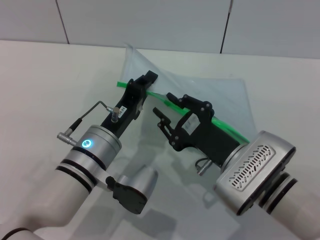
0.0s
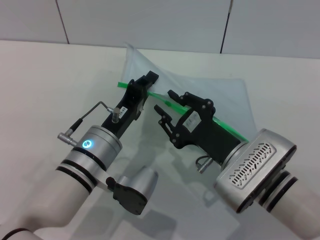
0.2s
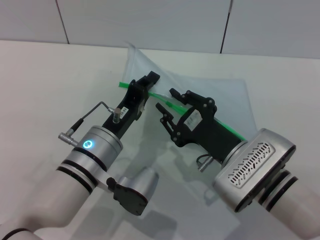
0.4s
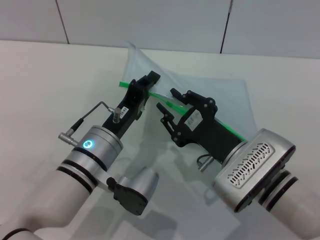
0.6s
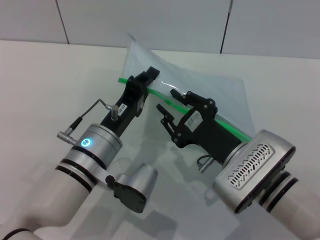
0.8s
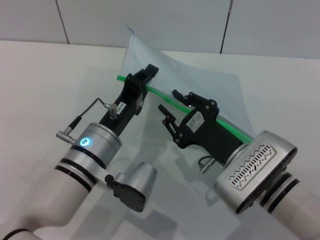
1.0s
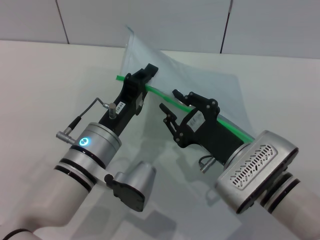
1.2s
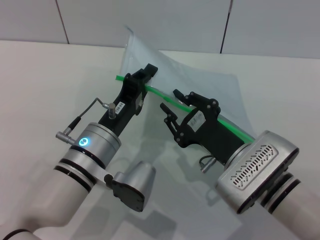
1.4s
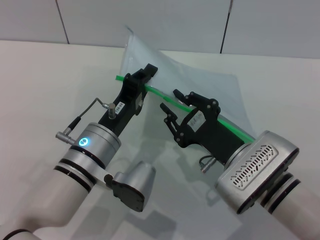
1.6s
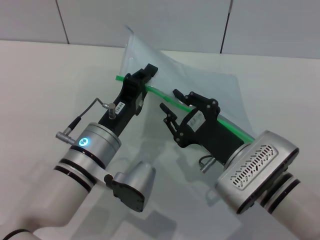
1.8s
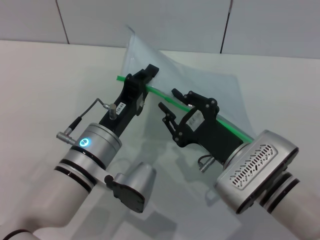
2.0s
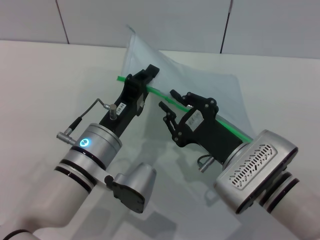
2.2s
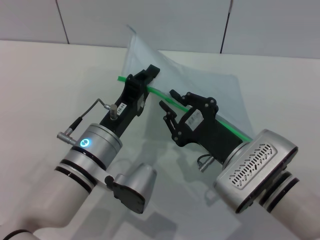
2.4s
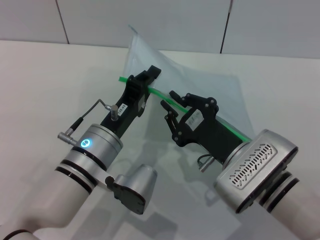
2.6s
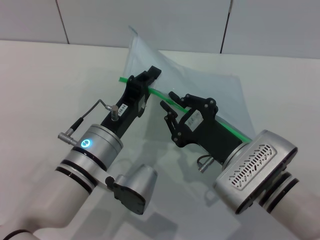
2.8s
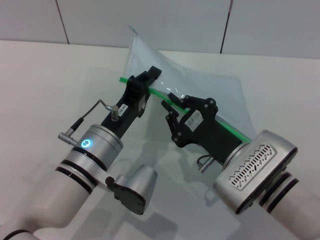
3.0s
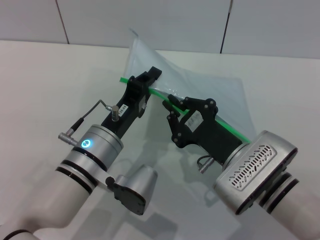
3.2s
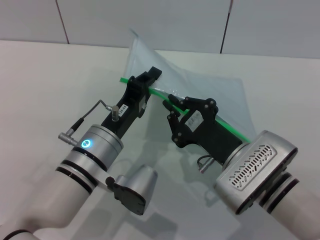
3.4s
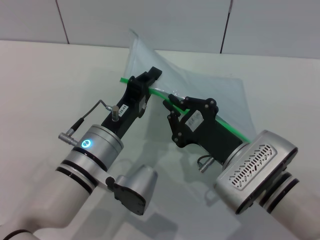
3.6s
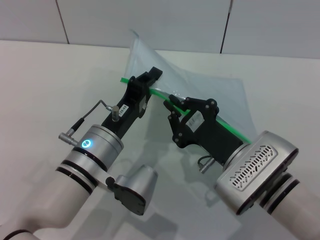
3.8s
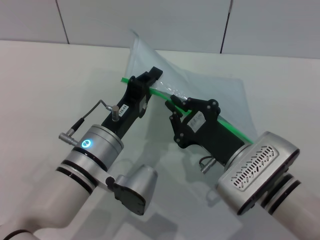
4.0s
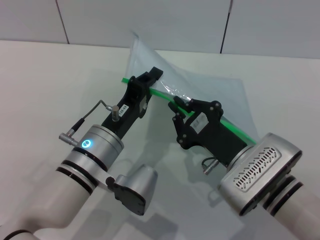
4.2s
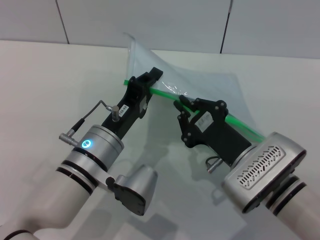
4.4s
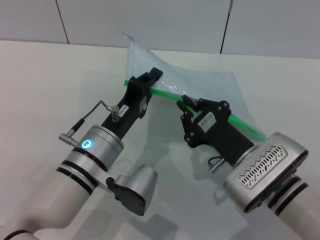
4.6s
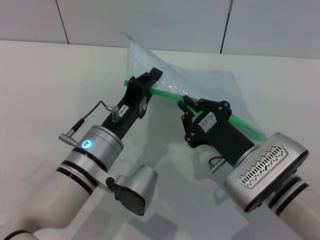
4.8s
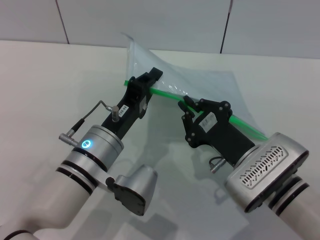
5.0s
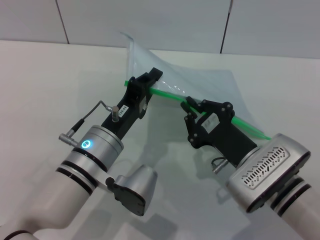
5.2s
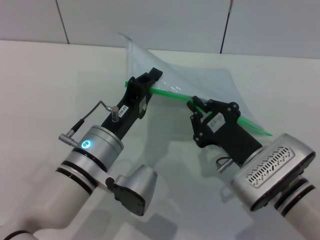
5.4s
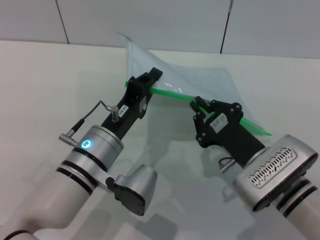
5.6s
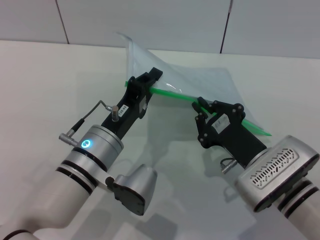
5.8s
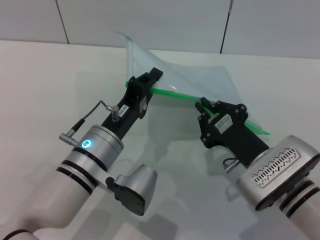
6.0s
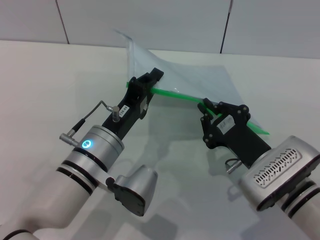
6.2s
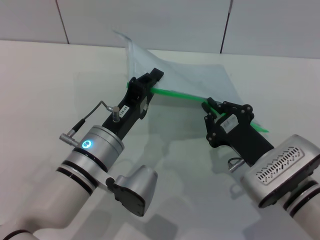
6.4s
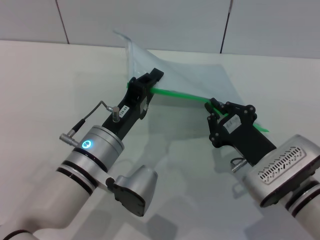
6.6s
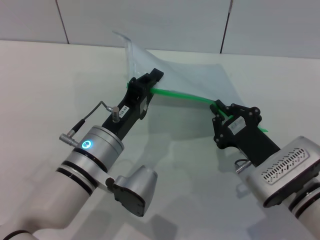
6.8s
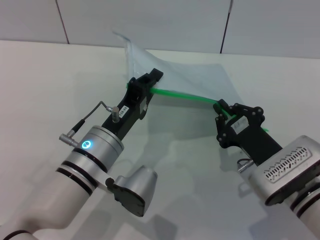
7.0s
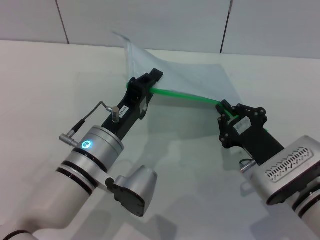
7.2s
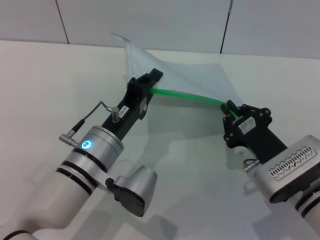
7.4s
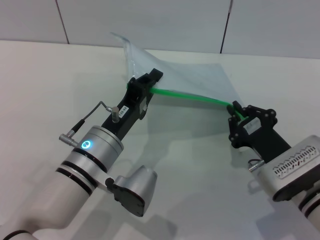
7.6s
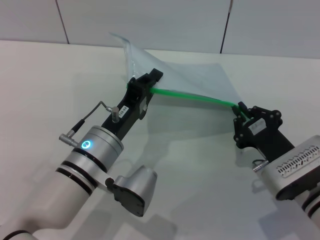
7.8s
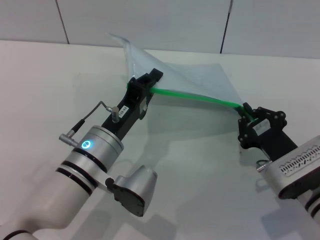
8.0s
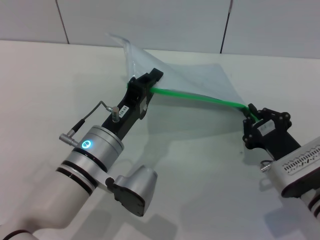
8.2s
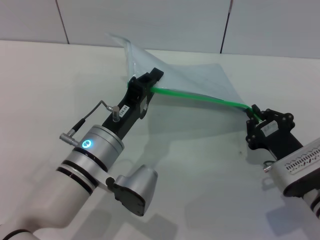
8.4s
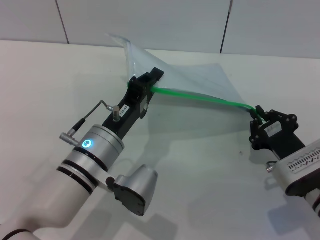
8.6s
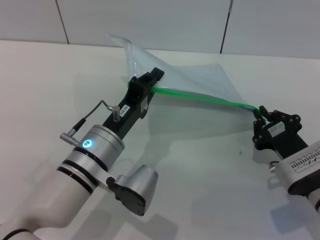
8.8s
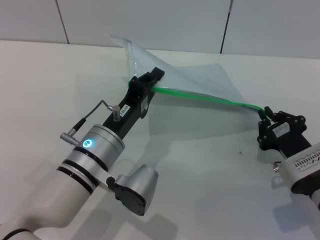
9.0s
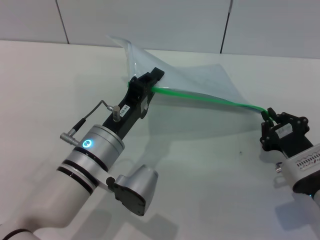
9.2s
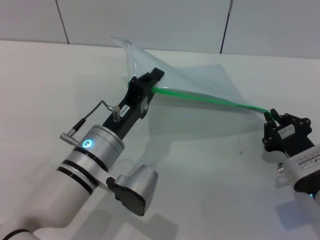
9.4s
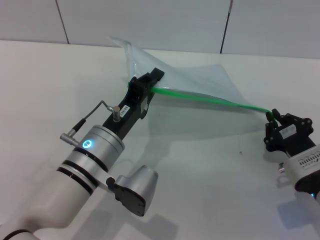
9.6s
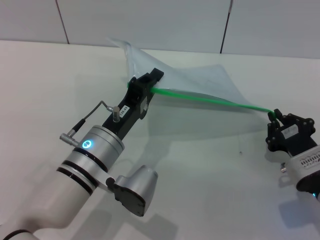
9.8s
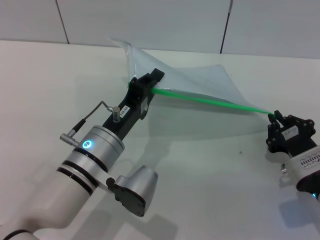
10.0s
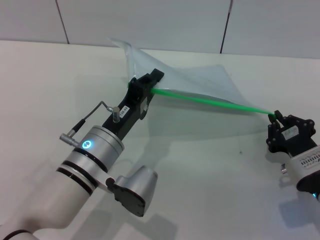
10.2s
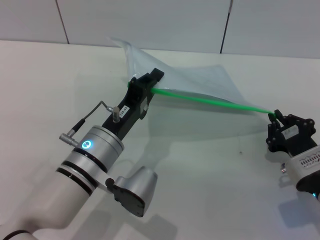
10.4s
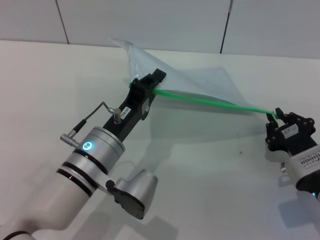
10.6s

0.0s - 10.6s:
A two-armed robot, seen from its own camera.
0.0s - 1.6s: The grippers make only small movements.
1.6s - 3.0s: Both grippers stay put.
3.0s - 6.0s: The grippers make only small movements.
6.0s - 7.6s: The grippers stay close to where they were, moving slightly.
7.6s - 9.0s: There are only small adjustments of the grippers.
9.0s - 10.6s: The two grippers keep their place.

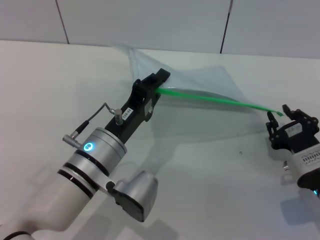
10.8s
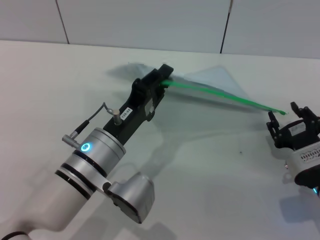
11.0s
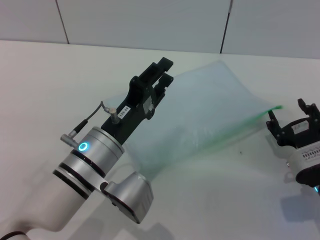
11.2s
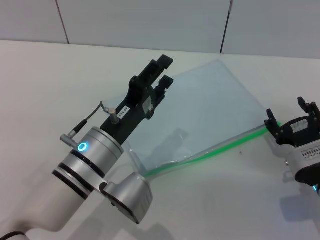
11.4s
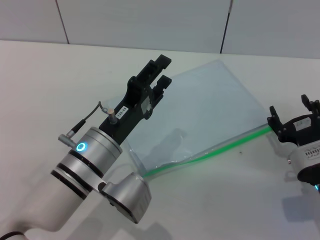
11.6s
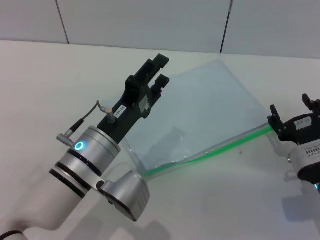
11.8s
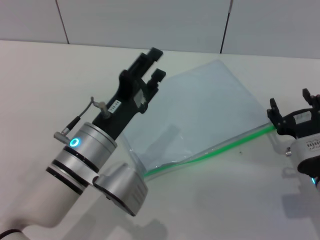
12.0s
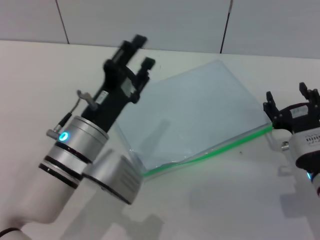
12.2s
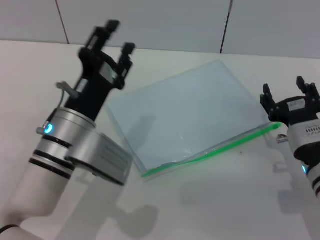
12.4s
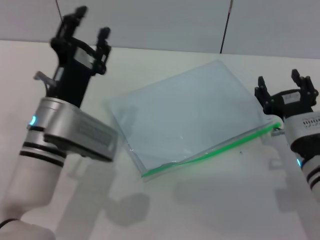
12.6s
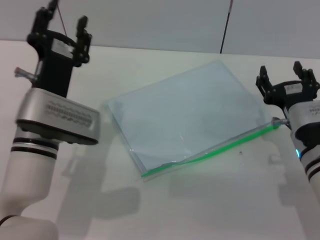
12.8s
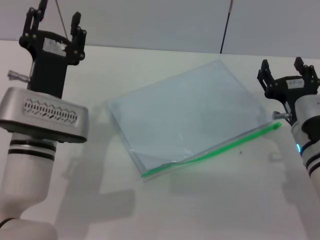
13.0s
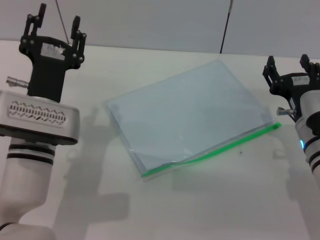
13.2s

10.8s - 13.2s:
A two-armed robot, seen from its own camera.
Step, 11.4s - 12.6s: Place the transparent plastic bag.
10.8s - 12.0s: The left gripper opens. Meanwhile the right gripper opens up.
12.0s - 13.2s: The left gripper changes place by approximately 5 cm; the right gripper moves about 5 cm.

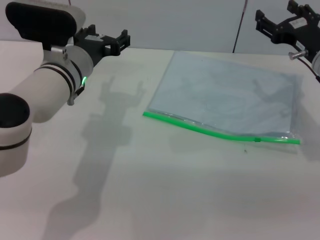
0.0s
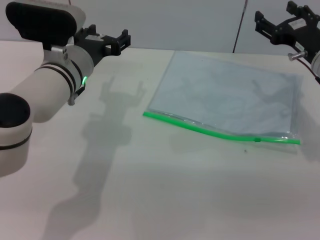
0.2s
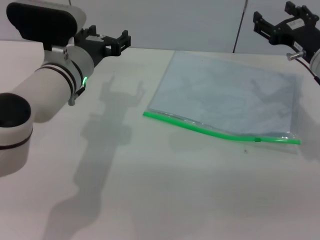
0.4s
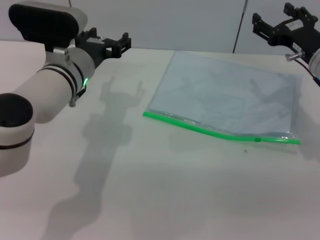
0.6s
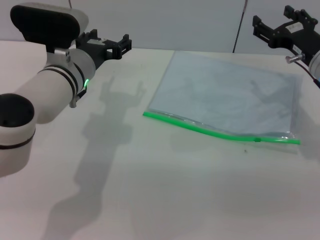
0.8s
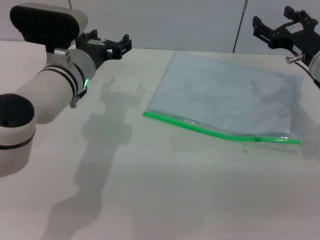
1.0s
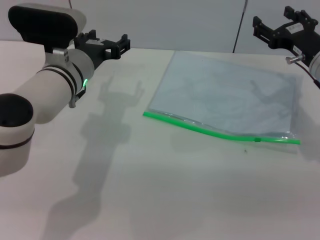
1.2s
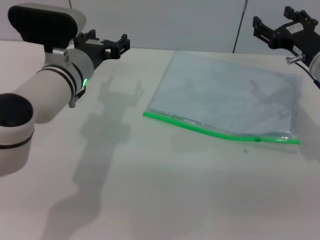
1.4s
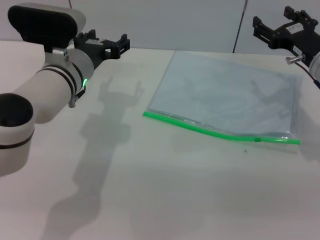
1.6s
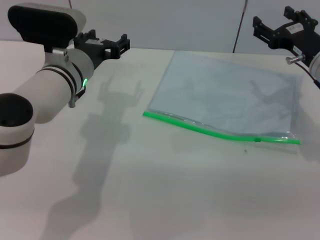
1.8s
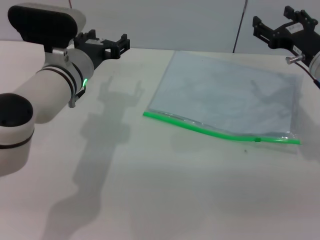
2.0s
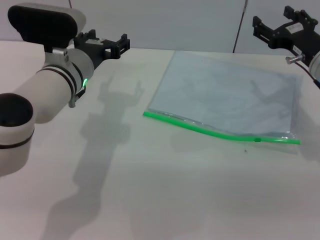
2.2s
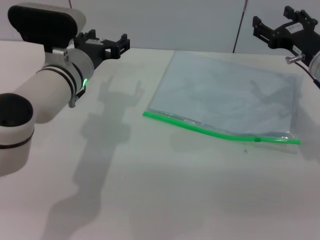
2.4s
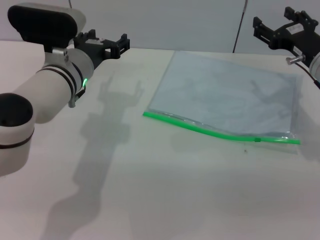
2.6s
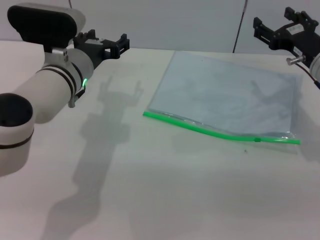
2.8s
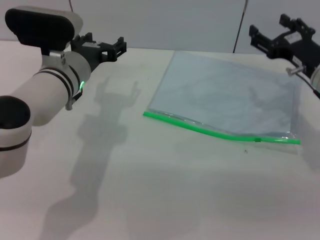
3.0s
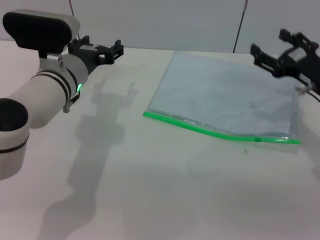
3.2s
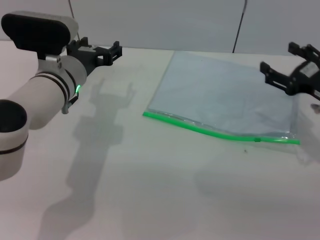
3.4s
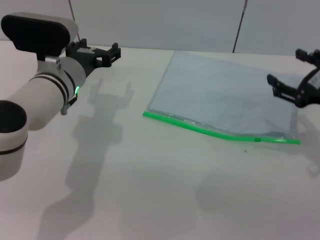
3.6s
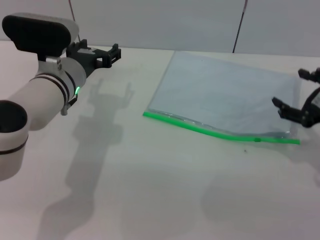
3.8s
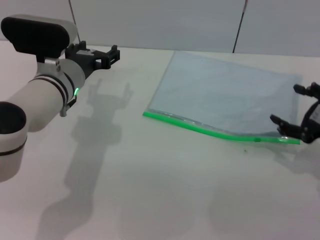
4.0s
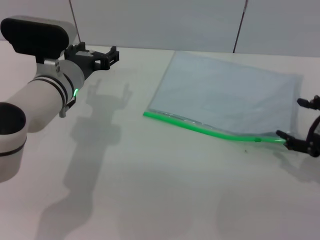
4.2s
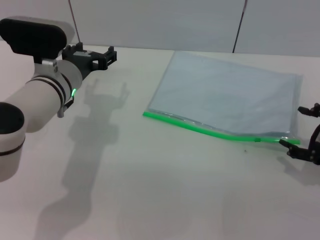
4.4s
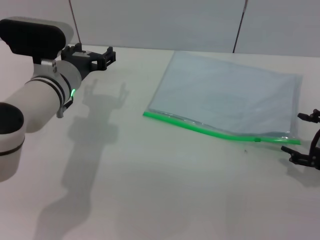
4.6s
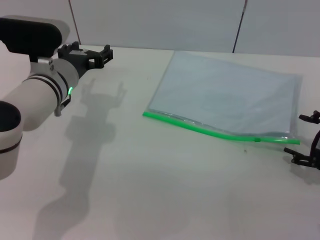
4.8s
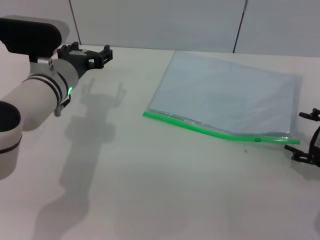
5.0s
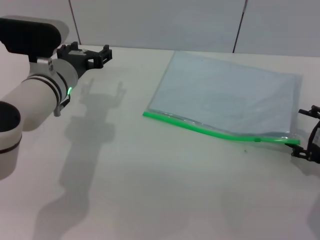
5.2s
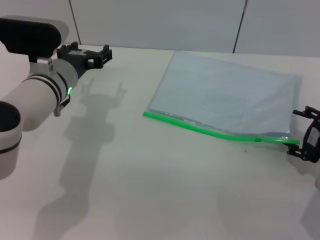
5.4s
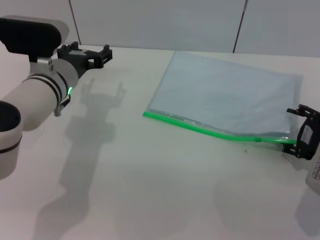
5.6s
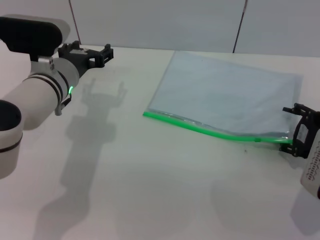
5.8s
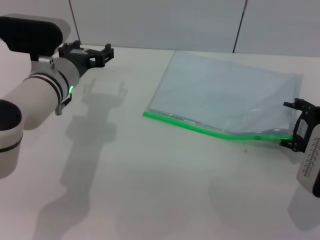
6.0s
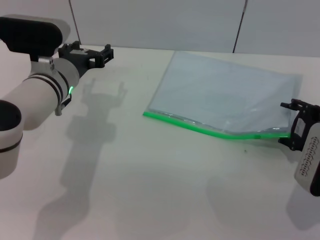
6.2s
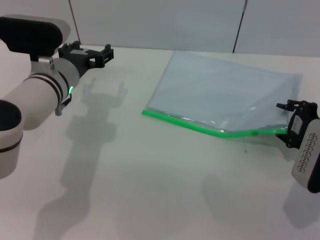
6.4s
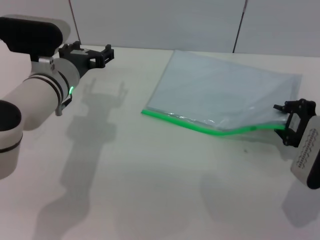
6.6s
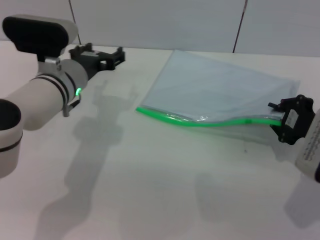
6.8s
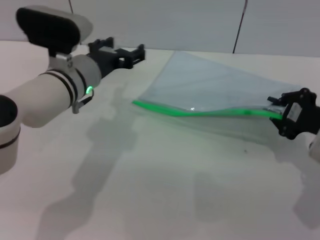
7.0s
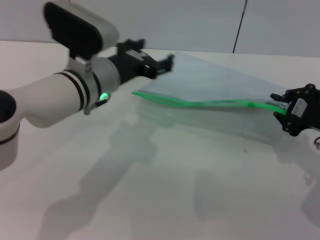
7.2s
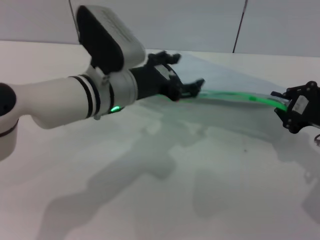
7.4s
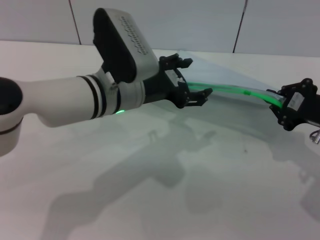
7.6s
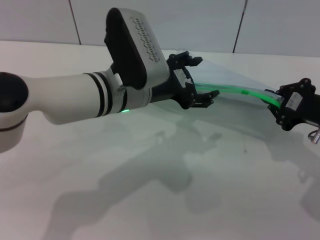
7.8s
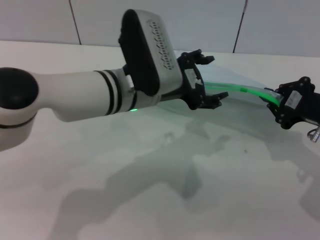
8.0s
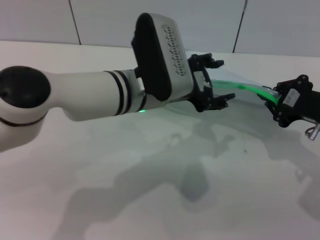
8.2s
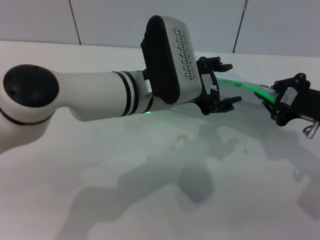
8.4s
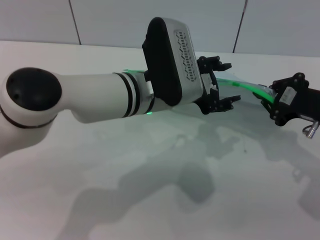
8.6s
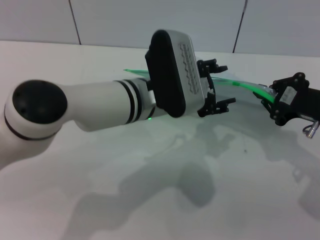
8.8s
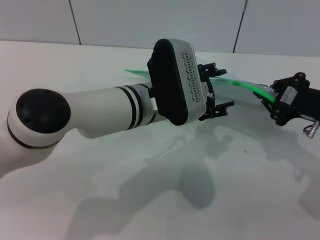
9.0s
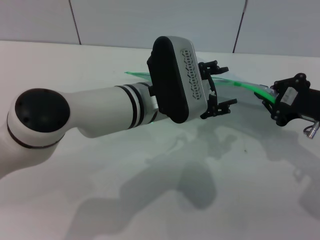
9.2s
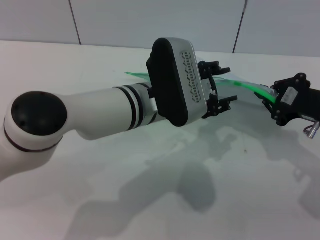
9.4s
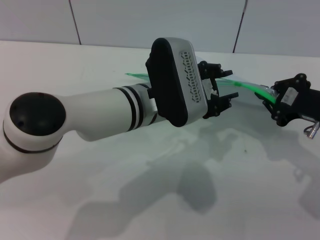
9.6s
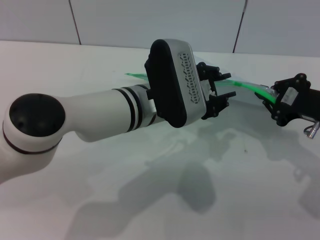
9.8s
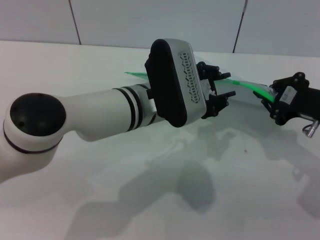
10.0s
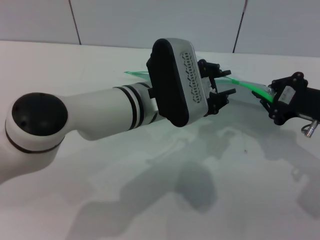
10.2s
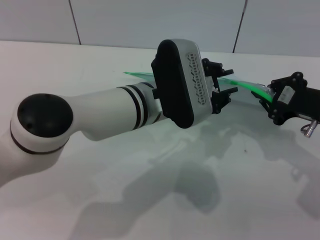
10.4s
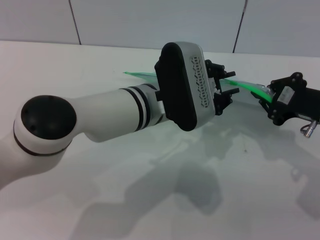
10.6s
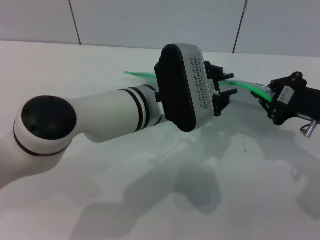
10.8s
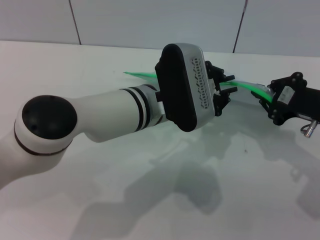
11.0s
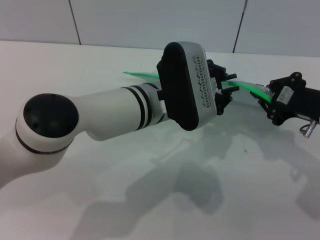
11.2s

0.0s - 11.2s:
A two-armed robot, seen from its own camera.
Step, 0.0s - 7.4s: Pick up the transparent plastic bag with the right gripper.
0.0s - 1.6s: Both grippers stay put.
1.6s - 3.2s: The grippers make only small movements.
3.2s - 4.8s: The right gripper goes roughly 10 cm backward.
4.8s - 6.4s: The right gripper shifts by approximately 5 cm.
6.4s - 8.0s: The right gripper closes up. The left gripper goes some 10 cm to the right.
9.6s - 11.2s: The left gripper closes up.
